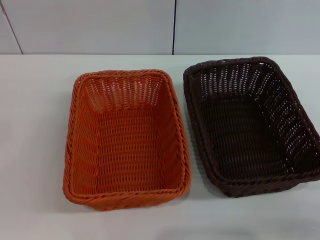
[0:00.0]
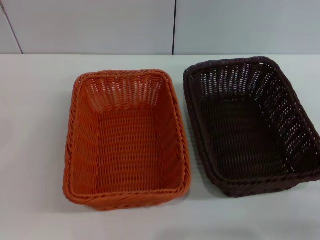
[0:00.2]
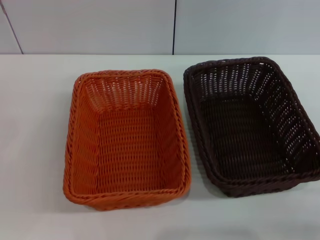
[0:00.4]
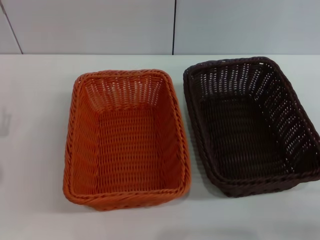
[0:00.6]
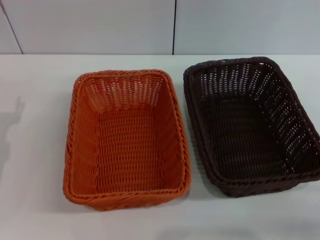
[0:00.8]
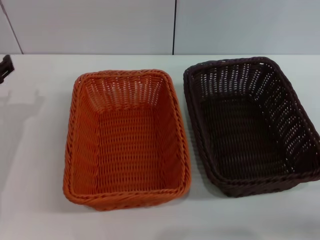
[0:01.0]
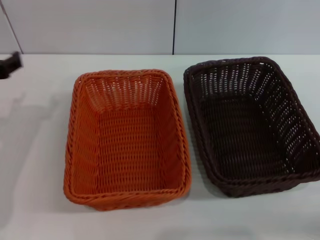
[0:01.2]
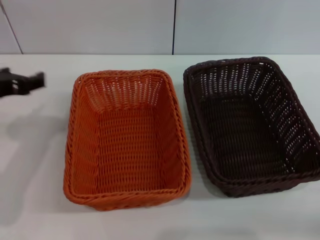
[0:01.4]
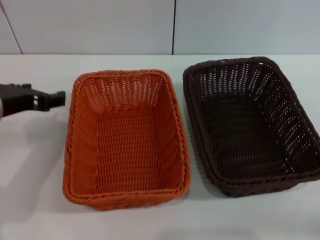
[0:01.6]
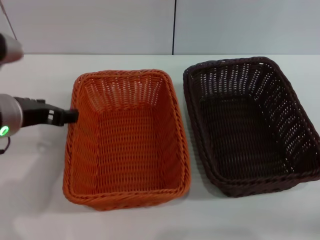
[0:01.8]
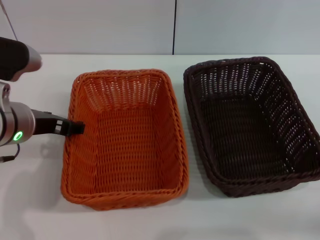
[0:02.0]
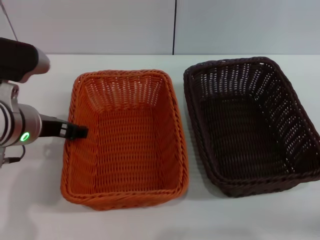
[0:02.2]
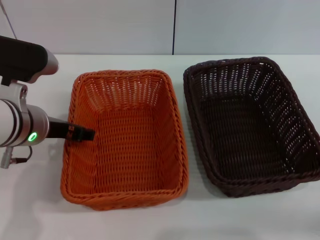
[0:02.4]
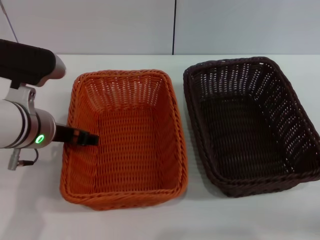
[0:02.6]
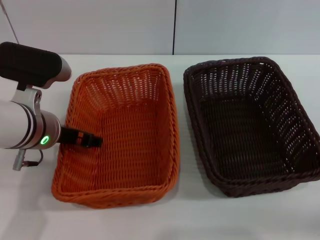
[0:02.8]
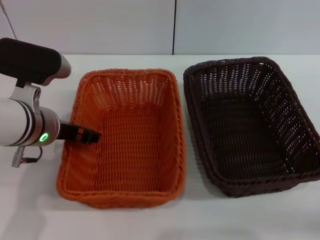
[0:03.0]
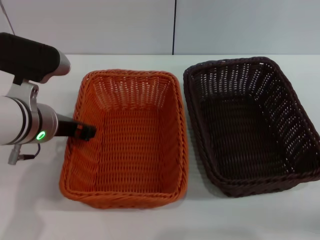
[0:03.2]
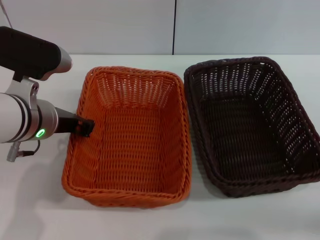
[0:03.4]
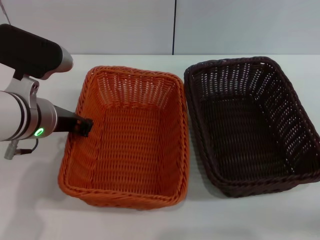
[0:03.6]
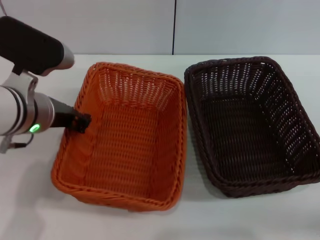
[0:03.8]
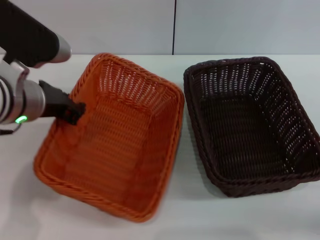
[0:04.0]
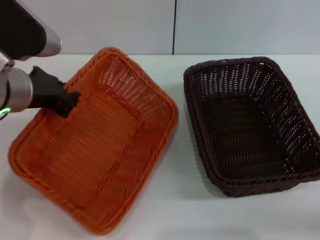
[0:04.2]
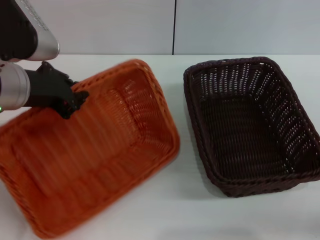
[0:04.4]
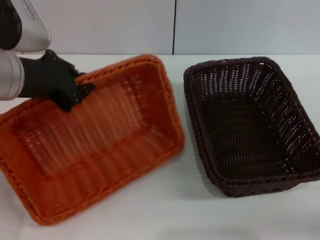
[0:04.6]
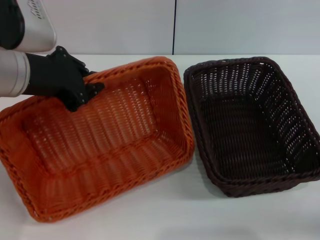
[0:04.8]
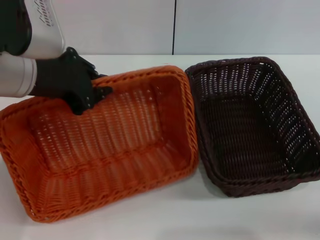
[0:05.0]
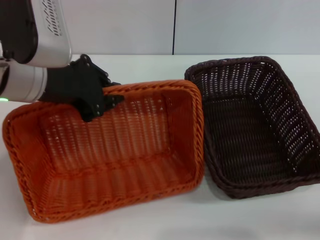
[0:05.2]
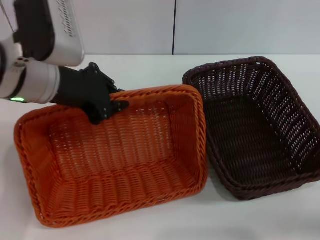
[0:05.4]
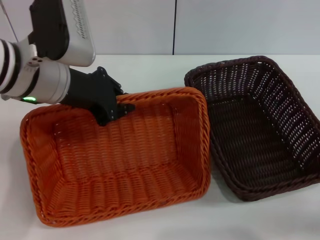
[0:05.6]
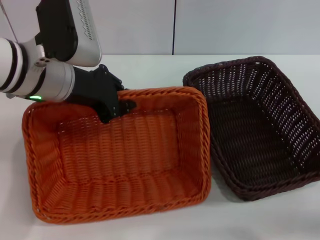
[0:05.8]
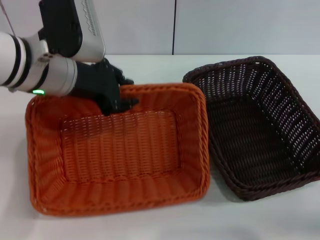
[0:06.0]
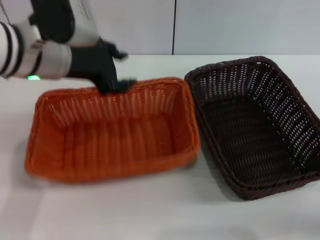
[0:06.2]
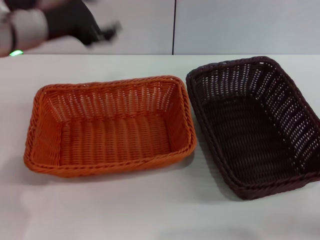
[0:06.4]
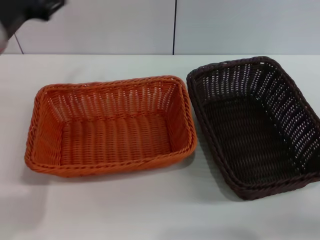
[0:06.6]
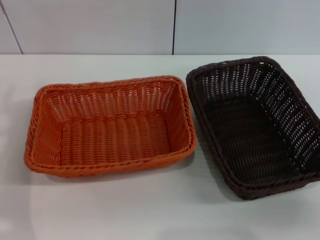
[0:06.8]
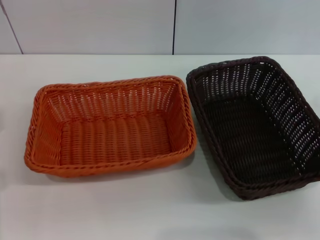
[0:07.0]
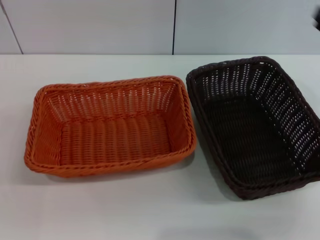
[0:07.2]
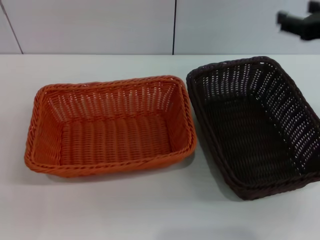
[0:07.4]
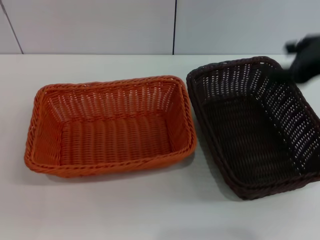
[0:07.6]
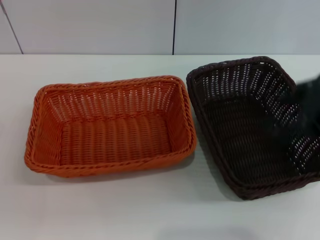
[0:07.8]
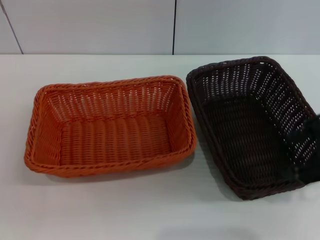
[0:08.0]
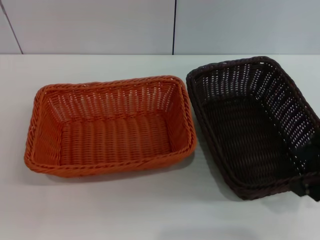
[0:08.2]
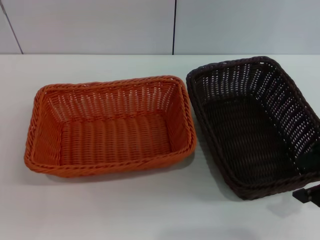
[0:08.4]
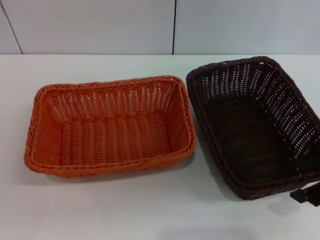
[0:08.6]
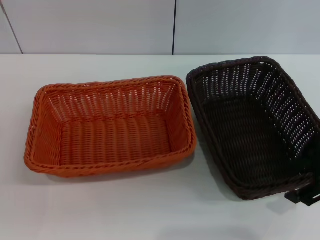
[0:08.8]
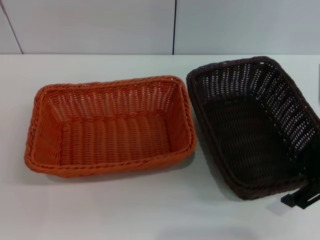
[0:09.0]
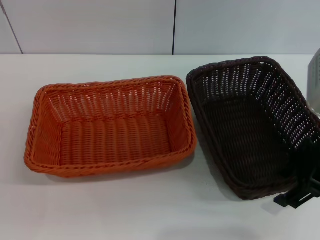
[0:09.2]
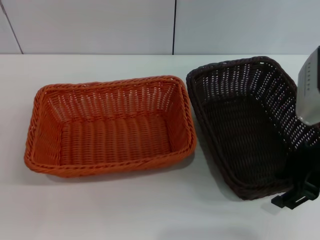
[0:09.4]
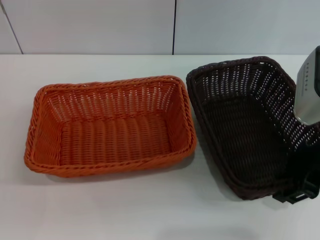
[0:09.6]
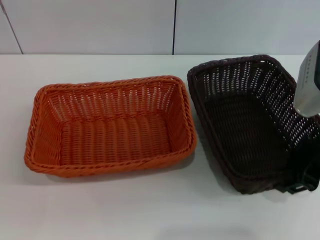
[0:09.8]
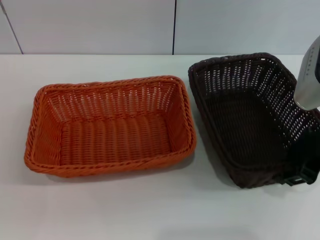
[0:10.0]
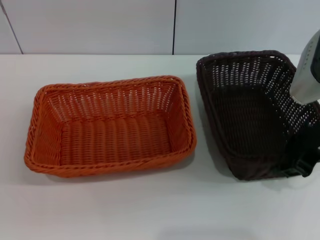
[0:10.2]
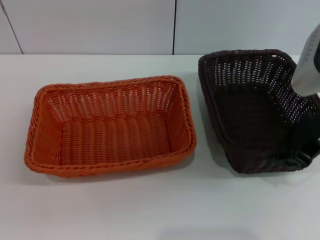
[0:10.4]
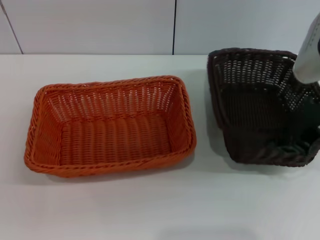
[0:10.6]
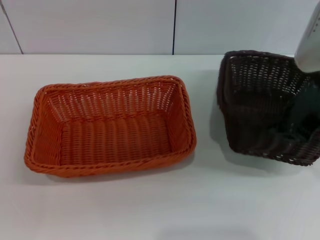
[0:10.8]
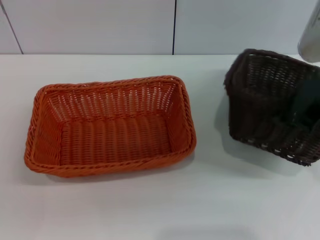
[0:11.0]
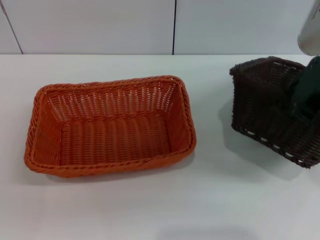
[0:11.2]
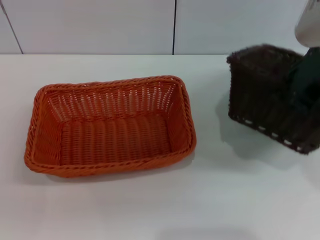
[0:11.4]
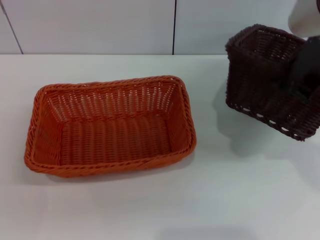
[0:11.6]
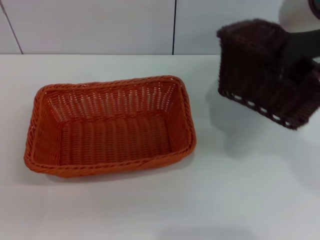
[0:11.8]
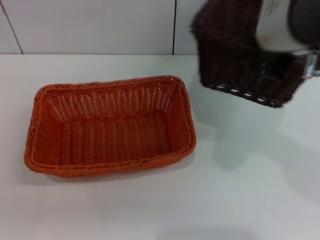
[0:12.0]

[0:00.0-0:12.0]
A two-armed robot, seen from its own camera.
Step, 0:00.0 to 0:04.0: Pick up the light basket with the left gripper.
Step, 0:04.2 to 0:06.2: Place the light basket in the center of view with the left gripper.
Step, 0:06.4 to 0:10.8: Pick up the dark basket with the right gripper.
0:00.0 to 0:01.6: The left gripper shifts approximately 20 cm upward and to the right.
0:01.6 to 0:03.0: The left gripper goes some 5 cm to the right.
0:03.0 to 0:04.4: The left gripper heads upward, covering roughly 10 cm, and closes up.
0:04.4 to 0:06.0: The left gripper ends up about 5 cm from where it was.
0:06.0 to 0:07.6: The left gripper goes about 25 cm downward, to the left and backward, and opens its fingers, while the right gripper shifts about 25 cm upward, to the left and forward.
0:07.6 to 0:09.0: The right gripper moves downward, approximately 5 cm.
0:09.0 to 0:10.4: The right gripper closes its fingers.
0:10.4 to 0:12.0: The right gripper shifts roughly 10 cm upward and to the left.

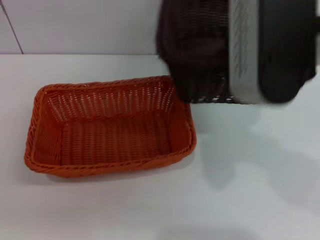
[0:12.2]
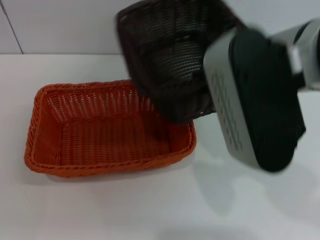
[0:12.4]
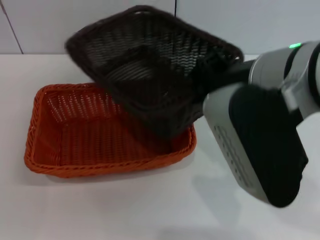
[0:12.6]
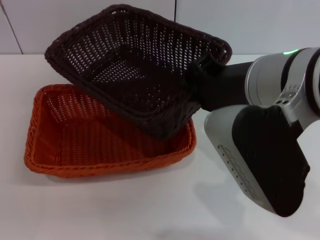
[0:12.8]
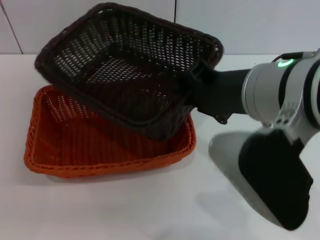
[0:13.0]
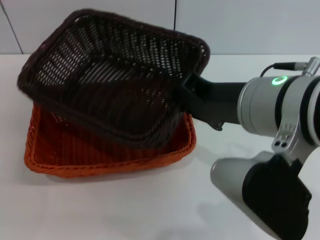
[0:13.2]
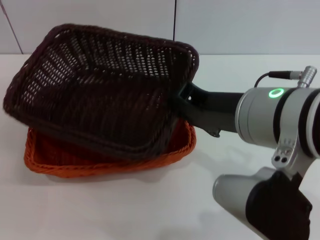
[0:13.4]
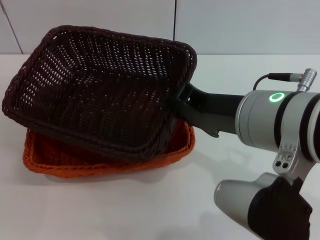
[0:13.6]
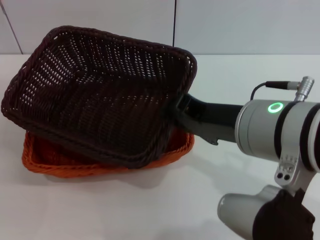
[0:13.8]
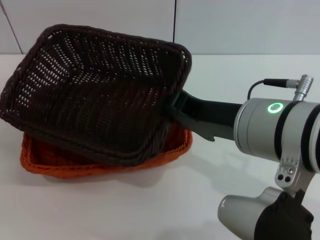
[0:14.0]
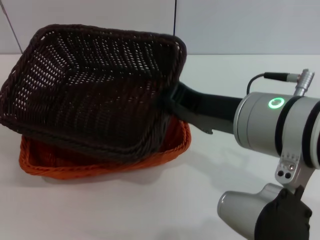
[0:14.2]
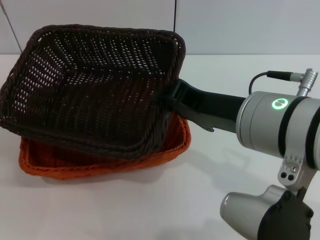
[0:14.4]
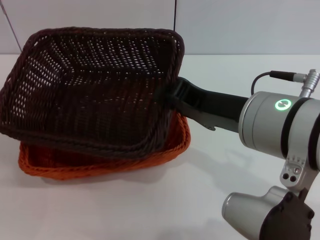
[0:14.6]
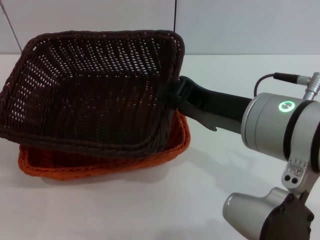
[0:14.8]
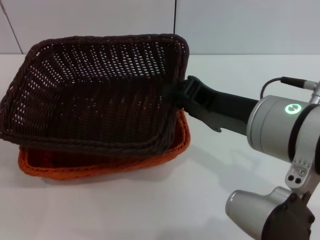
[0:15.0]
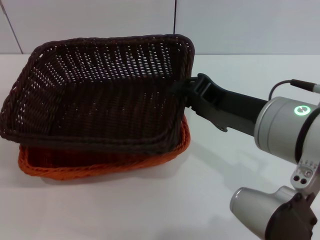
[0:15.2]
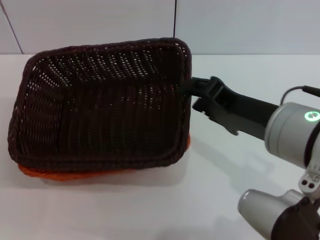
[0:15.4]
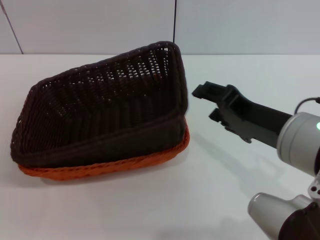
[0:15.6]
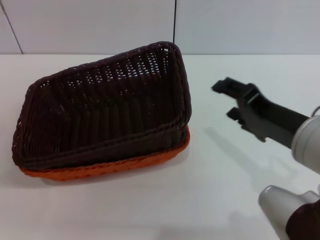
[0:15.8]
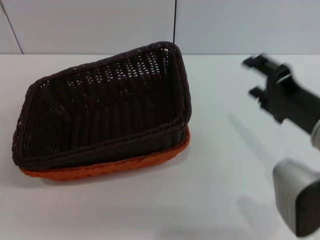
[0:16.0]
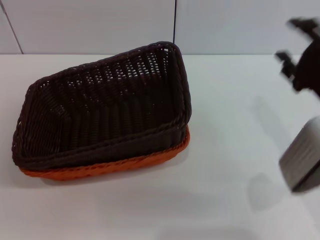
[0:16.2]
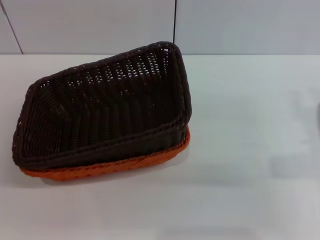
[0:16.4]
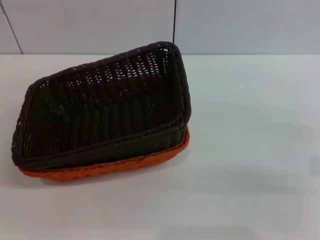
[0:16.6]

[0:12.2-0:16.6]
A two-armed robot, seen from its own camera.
Step, 0:12.2 to 0:15.6: Place the dark basket on the light basket with the right gripper.
0:12.2 to 0:13.6: The right gripper heads downward, covering about 10 cm.
0:15.2 to 0:16.6: The right gripper goes about 20 cm to the right and downward, and opens up.

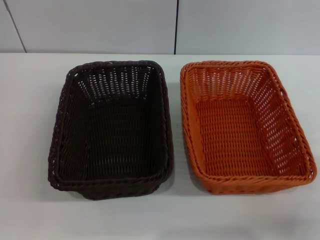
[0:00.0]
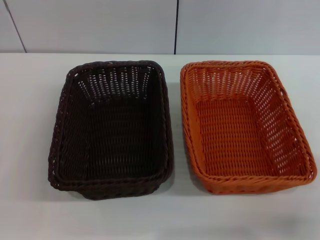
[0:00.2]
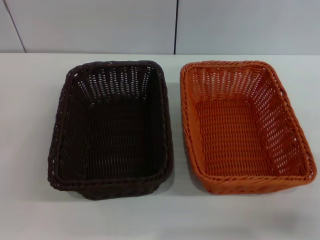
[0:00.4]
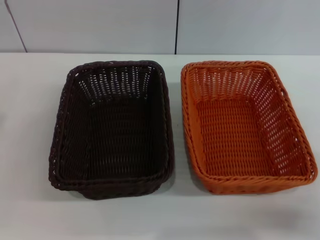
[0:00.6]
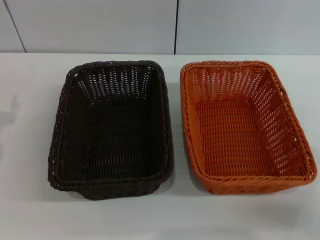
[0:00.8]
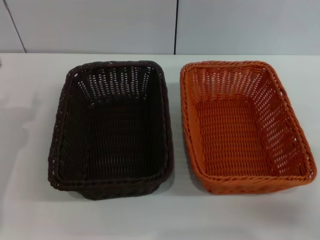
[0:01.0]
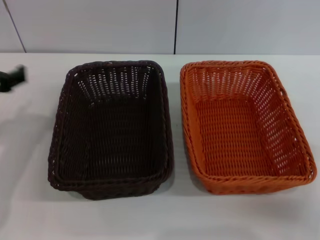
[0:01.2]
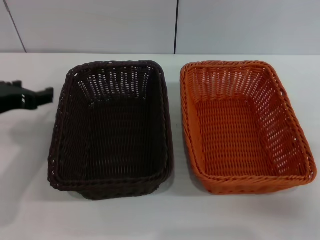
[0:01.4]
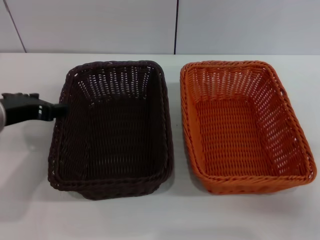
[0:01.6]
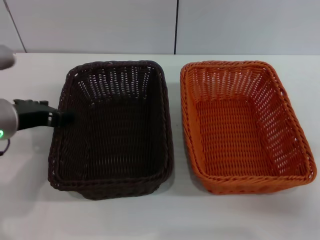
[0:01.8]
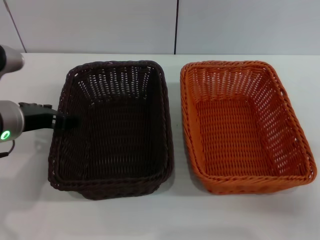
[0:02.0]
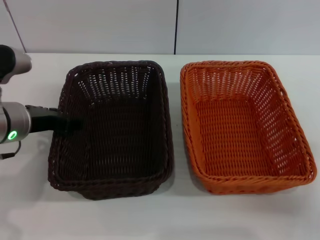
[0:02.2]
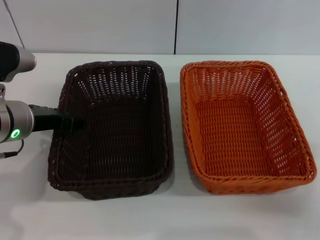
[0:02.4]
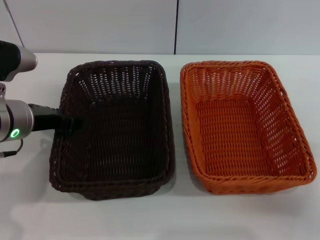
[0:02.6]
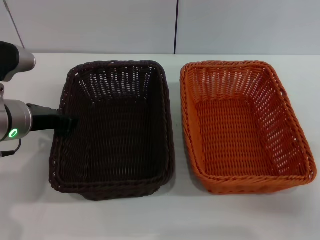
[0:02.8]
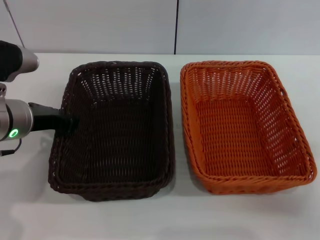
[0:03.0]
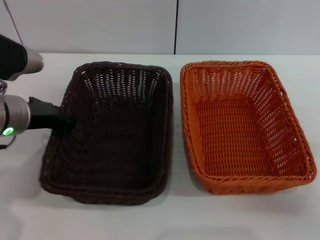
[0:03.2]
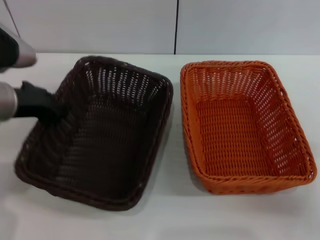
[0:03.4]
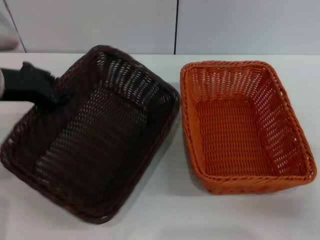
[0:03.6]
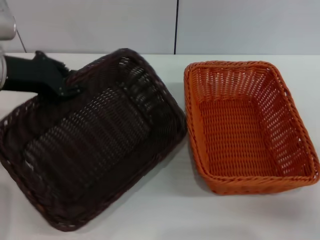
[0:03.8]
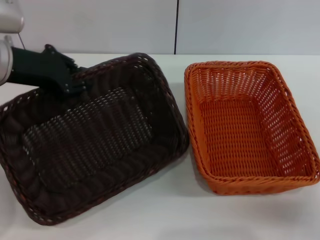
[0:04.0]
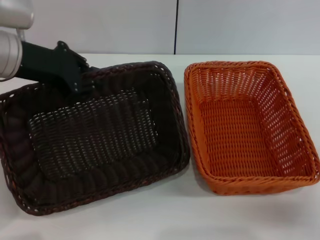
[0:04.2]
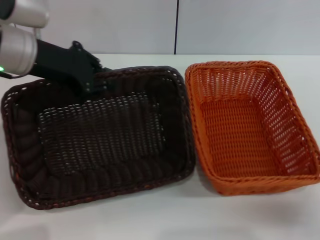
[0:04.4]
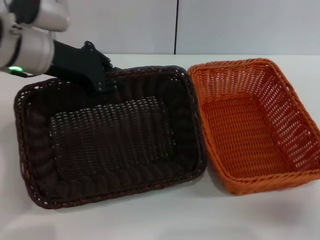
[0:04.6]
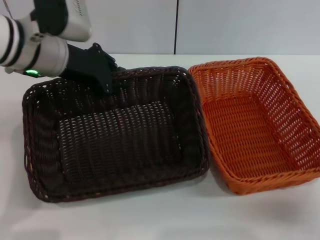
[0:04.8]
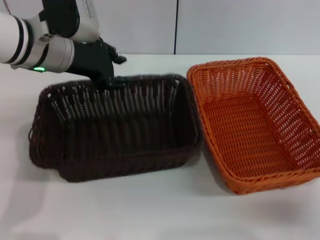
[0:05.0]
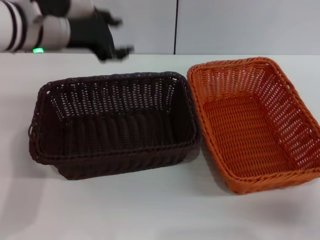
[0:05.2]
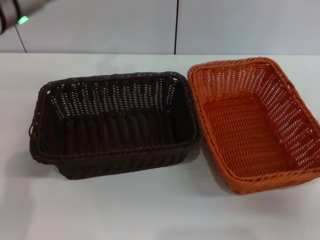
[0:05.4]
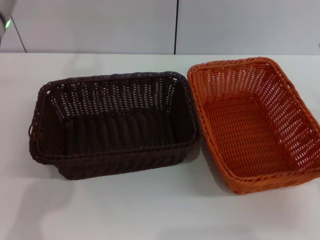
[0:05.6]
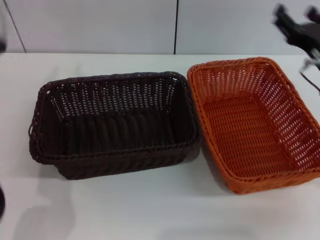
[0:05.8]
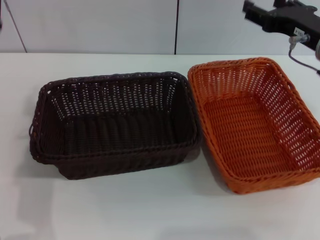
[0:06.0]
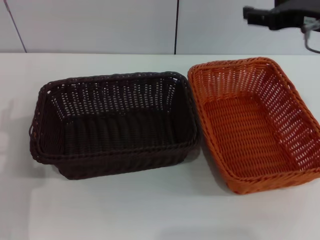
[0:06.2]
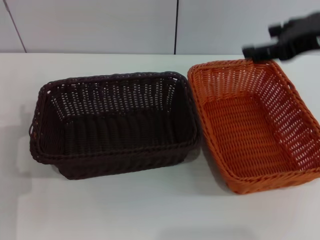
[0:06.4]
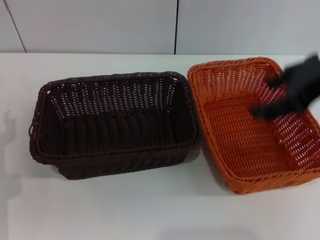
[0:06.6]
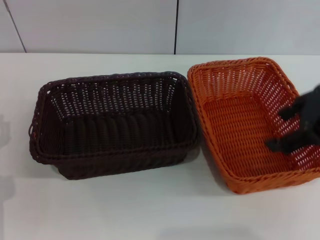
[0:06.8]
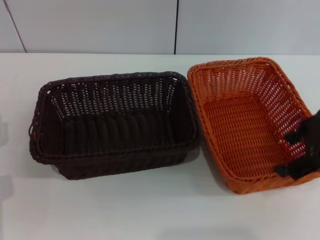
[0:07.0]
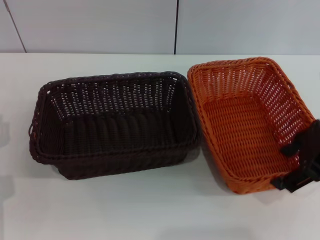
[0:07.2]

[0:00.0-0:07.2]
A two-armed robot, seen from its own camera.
Step, 0:00.0 to 0:03.6: Pick up the dark basket with the left gripper.
Step, 0:03.8 to 0:05.0: Place the dark basket in the center of view with the left gripper.
0:00.0 to 0:01.4: The left gripper is displaced upward, forward and to the right by some 20 cm.
0:01.4 to 0:02.8: The left gripper shifts by some 5 cm, and closes its fingers.
0:02.8 to 0:04.4: The left gripper heads upward and forward, covering about 10 cm, and closes.
0:04.4 to 0:05.8: The right gripper goes roughly 15 cm forward, upward and to the left, while the left gripper moves backward, roughly 5 cm, and opens.
0:05.8 to 0:07.2: The left gripper travels downward and to the left by roughly 20 cm. Meanwhile the right gripper travels upward and backward by about 10 cm.
